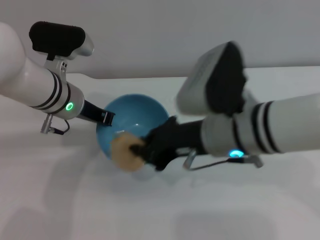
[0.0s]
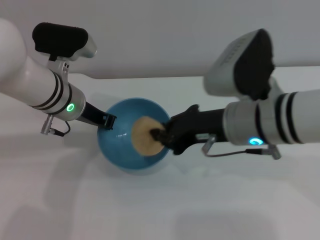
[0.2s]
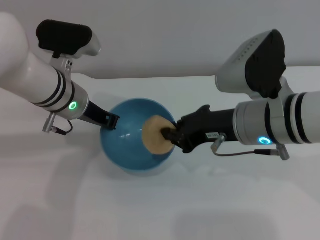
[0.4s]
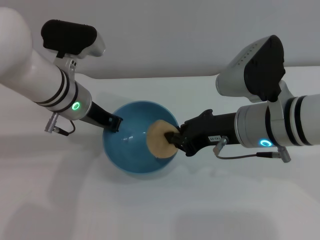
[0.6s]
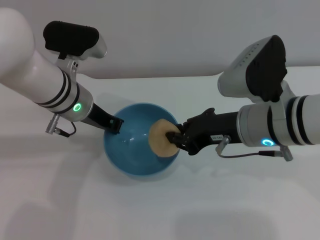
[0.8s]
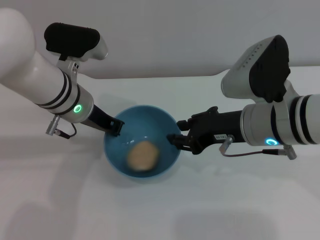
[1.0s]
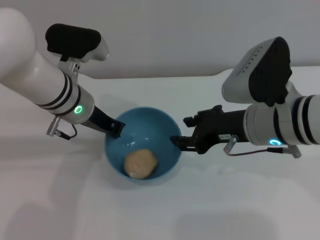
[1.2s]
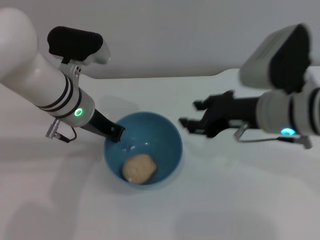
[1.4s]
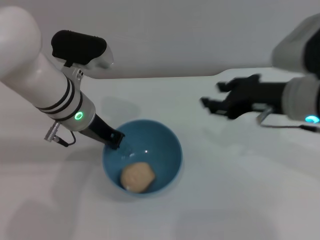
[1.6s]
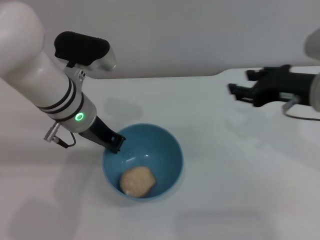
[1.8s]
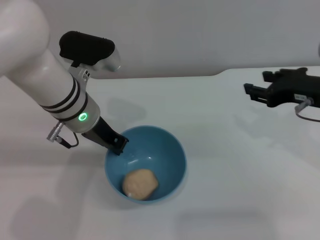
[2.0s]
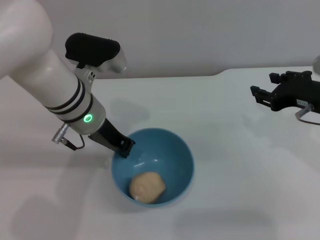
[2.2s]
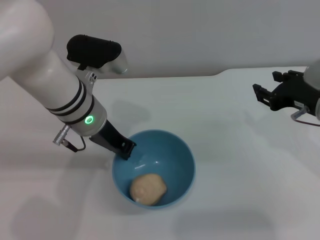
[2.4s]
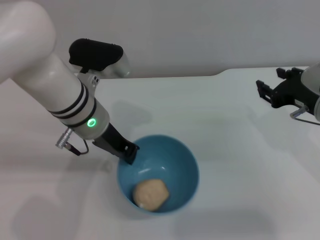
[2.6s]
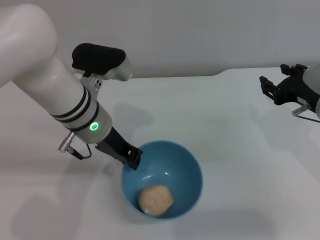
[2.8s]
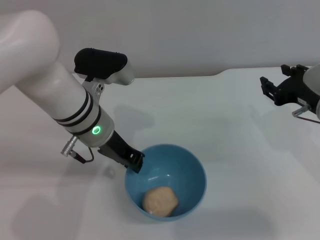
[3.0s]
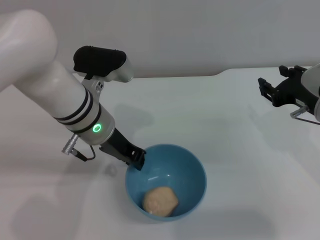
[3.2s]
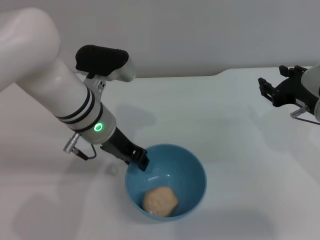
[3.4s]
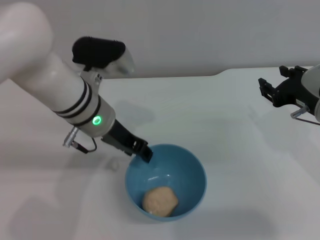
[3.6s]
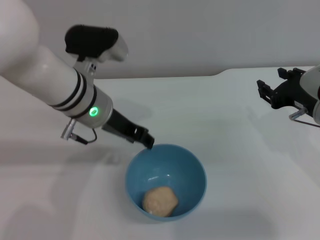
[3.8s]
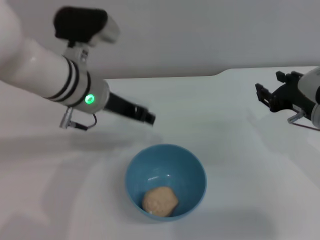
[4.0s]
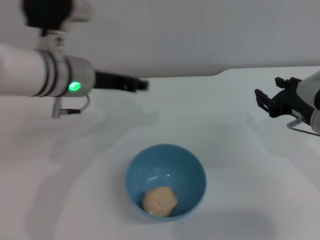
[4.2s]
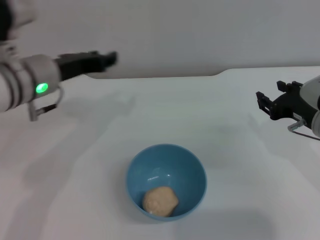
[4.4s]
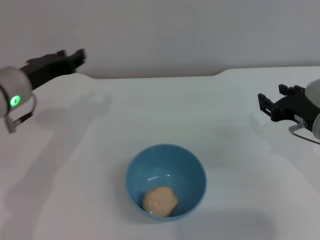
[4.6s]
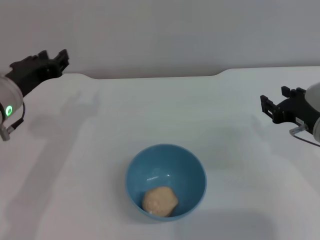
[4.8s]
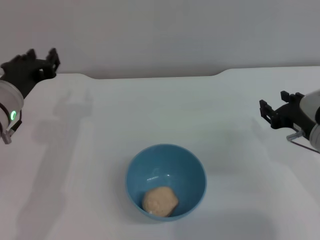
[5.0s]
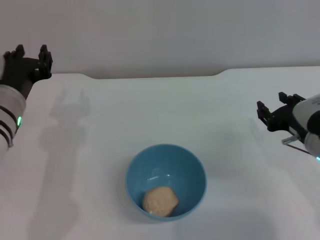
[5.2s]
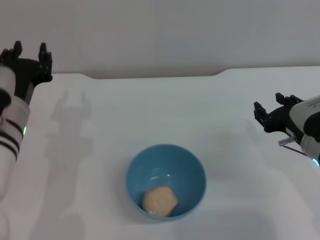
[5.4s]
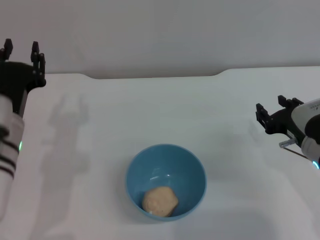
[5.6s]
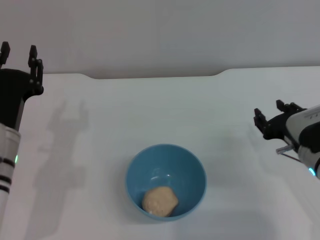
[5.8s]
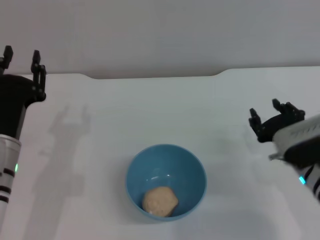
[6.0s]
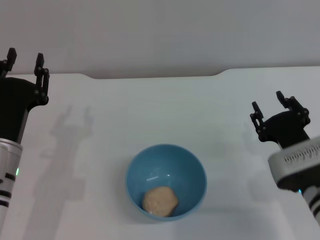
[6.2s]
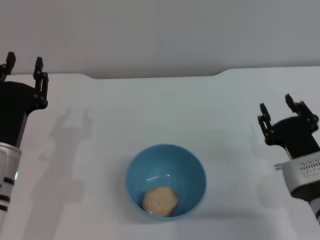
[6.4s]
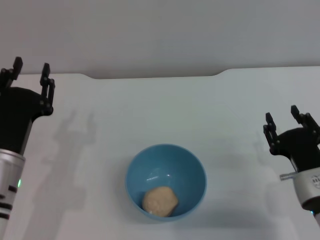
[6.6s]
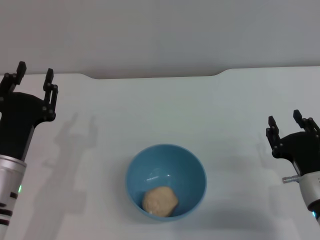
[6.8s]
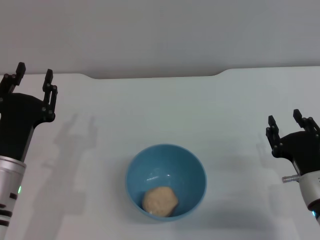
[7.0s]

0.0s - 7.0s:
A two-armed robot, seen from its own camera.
Task of the whole recording: put the egg yolk pastry into the blue bowl and pour it out repeatedly.
Step, 0.0s - 2.0s: Place the egg yolk pastry into the bowl.
Step, 2.4s - 4.0s: Place the bowl on the table.
0.0s - 1.4s: The right gripper shifts about 5 cm to the right, and opens its fingers.
1.4s - 2.8s: The right gripper heads to the right, covering about 10 cm.
2.8s - 4.2s: The left gripper ends up roughly 5 cm from where it was, and opens its fingers.
4.2s - 5.6s: The left gripper travels downward, backward and to the left by approximately 15 cm.
5.6s - 7.0s: The left gripper changes place by approximately 5 cm; the right gripper travels backward and downward by some 10 cm.
